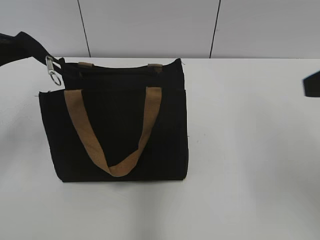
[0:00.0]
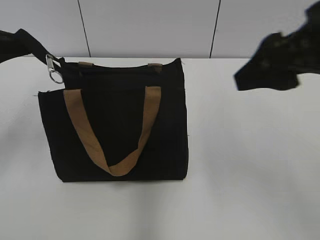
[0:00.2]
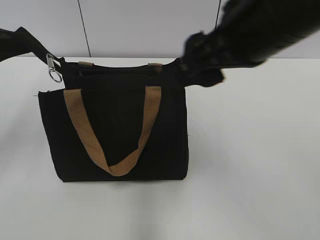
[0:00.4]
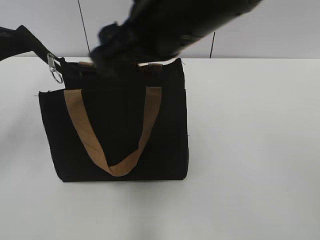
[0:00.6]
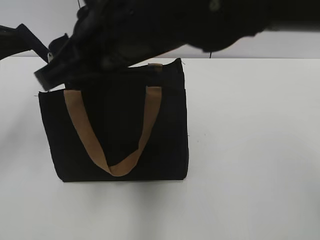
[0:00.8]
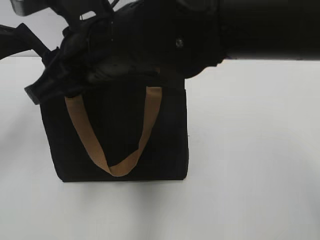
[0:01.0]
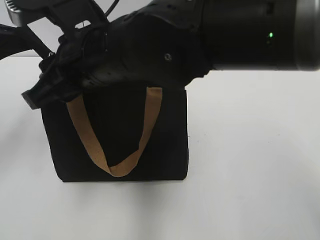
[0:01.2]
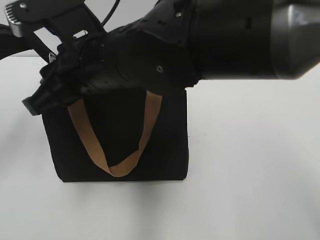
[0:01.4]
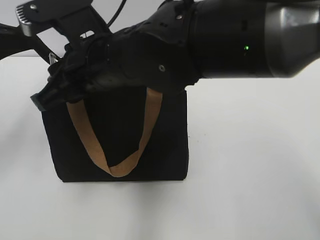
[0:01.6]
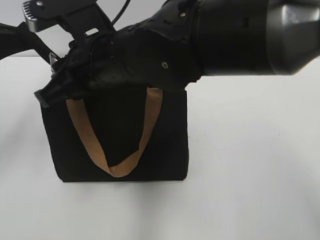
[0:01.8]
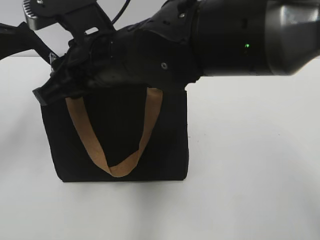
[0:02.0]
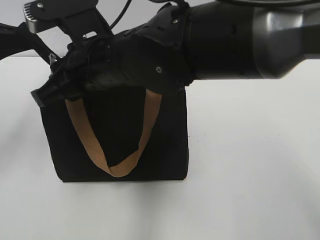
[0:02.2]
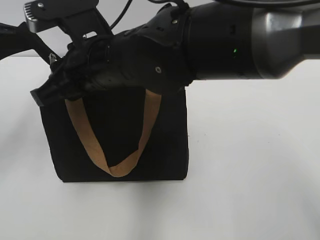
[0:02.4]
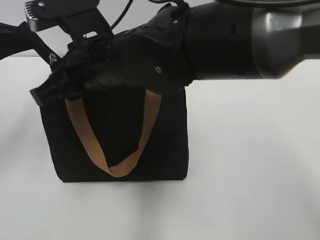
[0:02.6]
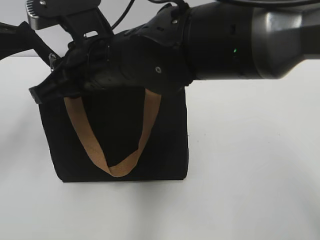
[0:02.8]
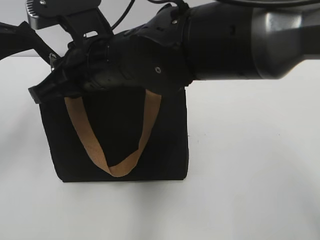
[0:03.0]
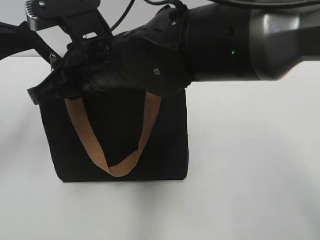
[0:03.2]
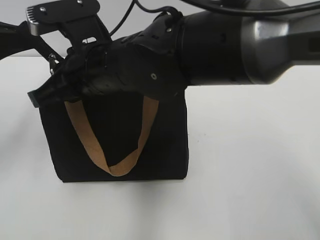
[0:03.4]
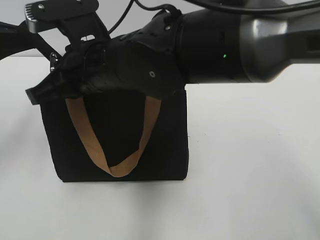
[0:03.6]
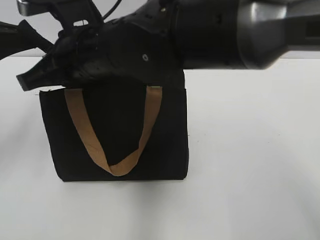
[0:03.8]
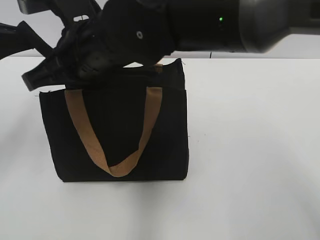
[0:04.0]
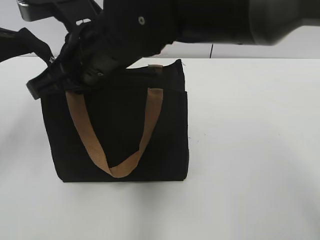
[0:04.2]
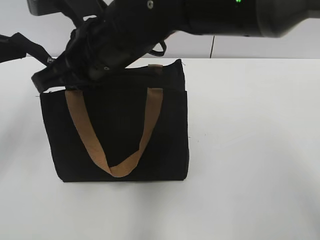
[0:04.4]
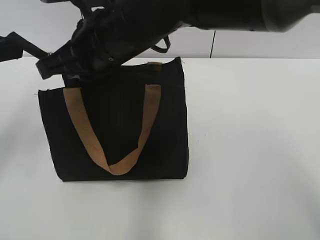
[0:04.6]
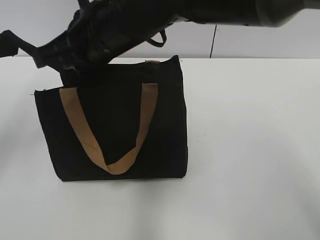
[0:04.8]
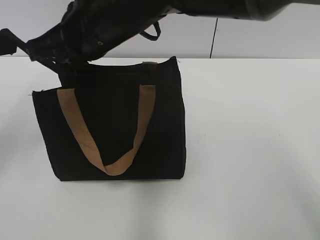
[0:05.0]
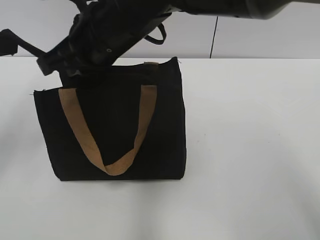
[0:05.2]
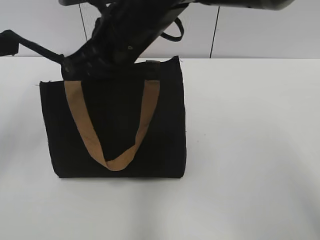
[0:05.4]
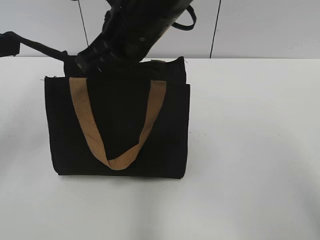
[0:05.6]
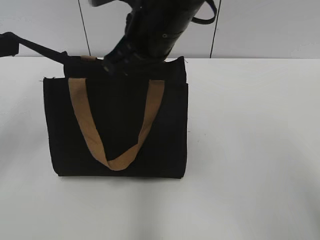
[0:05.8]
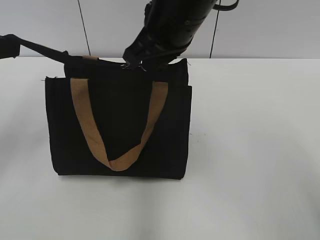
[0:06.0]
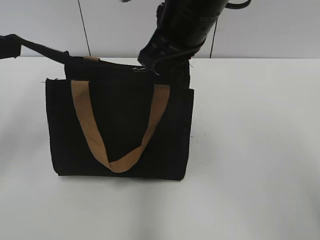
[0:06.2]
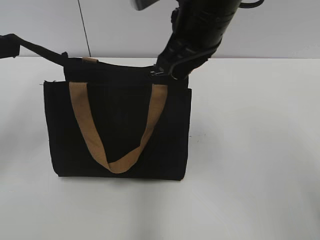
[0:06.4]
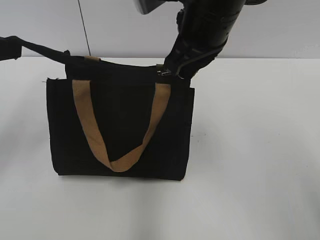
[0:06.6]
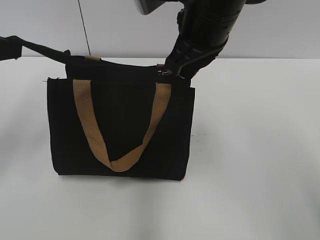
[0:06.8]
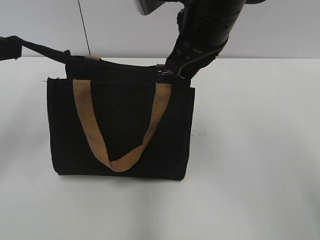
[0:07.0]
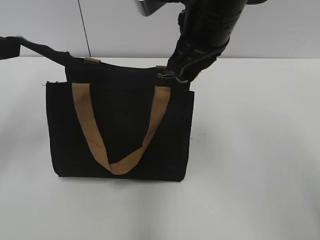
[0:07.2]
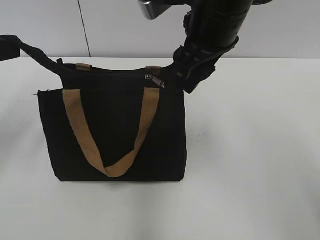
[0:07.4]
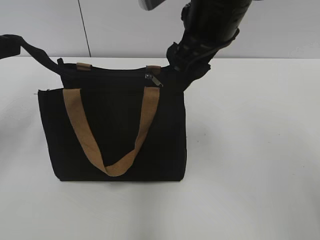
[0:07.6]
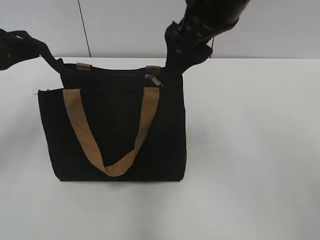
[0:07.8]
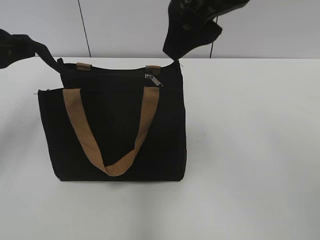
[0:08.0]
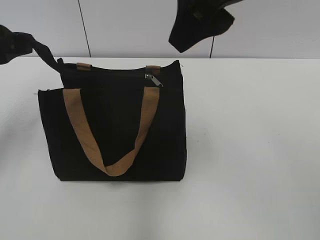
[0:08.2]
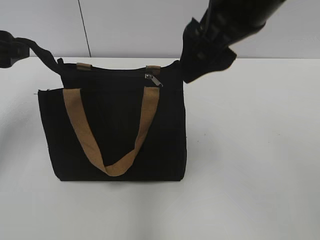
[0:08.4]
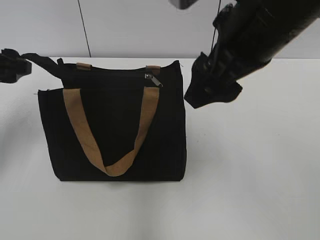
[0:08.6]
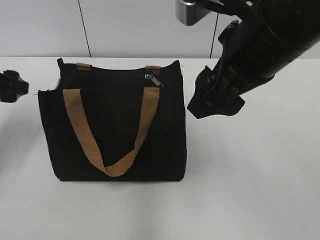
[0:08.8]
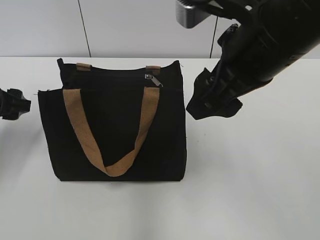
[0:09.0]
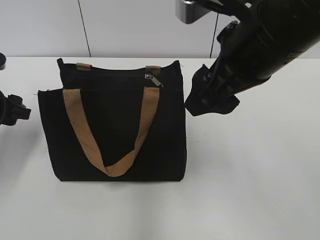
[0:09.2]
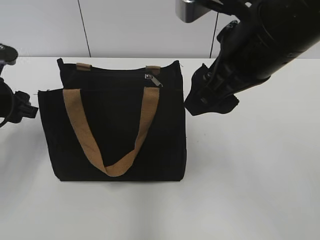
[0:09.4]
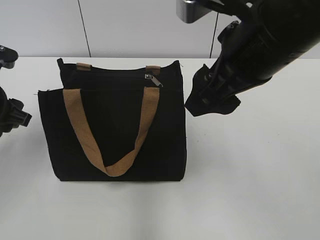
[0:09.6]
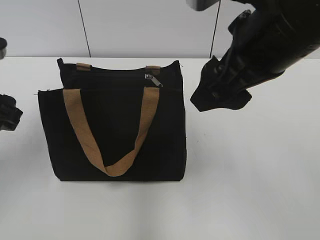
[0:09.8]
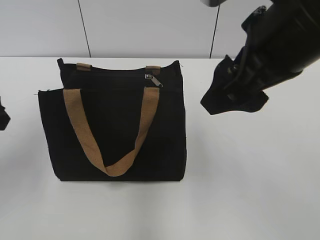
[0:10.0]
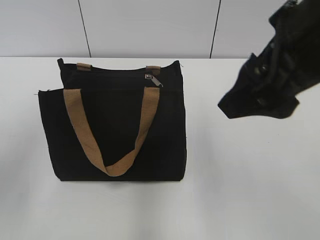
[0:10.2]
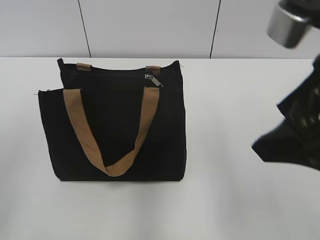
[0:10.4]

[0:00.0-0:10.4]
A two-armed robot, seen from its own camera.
Step, 0:00.0 to 0:07.2: Zip up the bag with your right hand.
Step, 0:07.4 to 0:08.6: Grab the zipper with your left hand.
0:00.0 to 0:01.4: The right gripper is displaced to the left by about 30 cm, and closes.
0:01.4 to 0:04.4: The grippers move only a little.
0:04.4 to 0:06.0: The right gripper is displaced to the right by about 10 cm.
0:06.0 to 0:07.4: The left gripper opens. The right gripper opens its fingers.
0:07.4 to 0:09.0: The right gripper travels backward by about 5 cm, and moves roughly 10 cm upward and comes back, while the left gripper travels downward by roughly 10 cm.
0:09.0 to 0:10.4: The right gripper moves backward and to the right, some 10 cm. The left gripper moves backward and upward, about 20 cm.

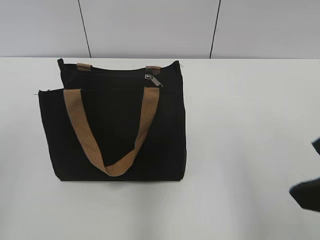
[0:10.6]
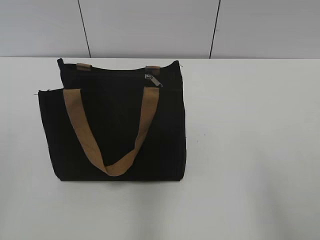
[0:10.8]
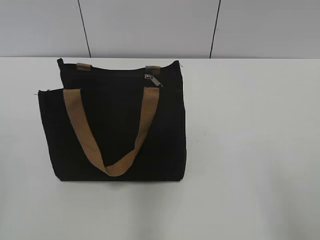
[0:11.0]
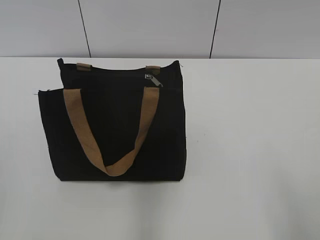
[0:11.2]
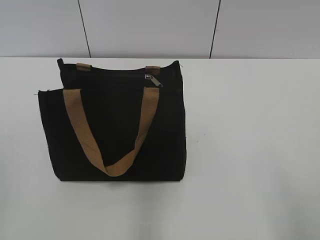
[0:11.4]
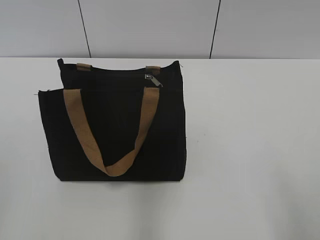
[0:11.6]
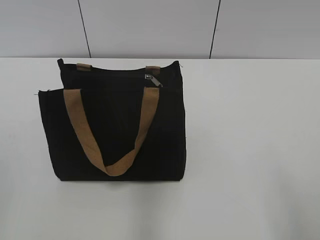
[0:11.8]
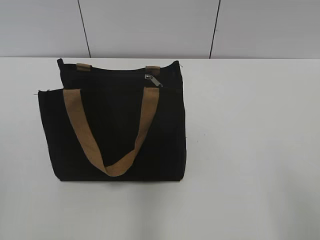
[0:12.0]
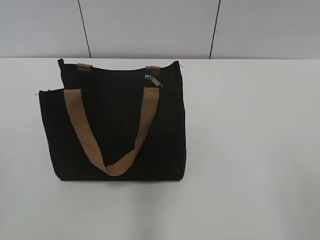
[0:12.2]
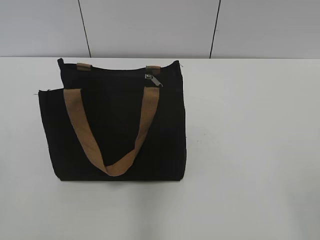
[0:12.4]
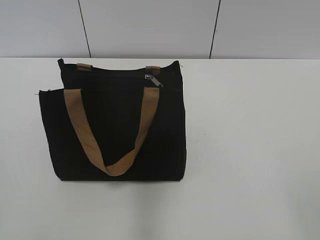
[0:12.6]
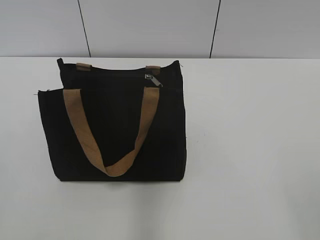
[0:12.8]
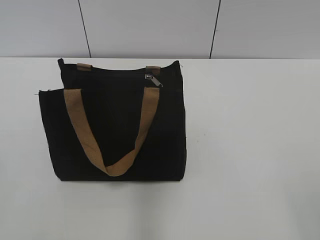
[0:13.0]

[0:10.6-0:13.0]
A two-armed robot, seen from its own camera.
0:10.6 to 0:11.8: The right gripper travels backward and to the right by some 10 cm.
